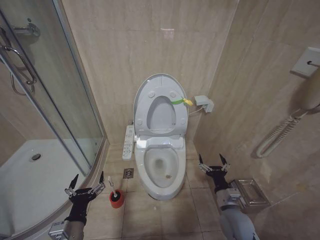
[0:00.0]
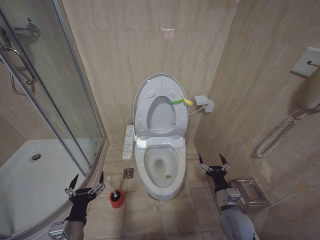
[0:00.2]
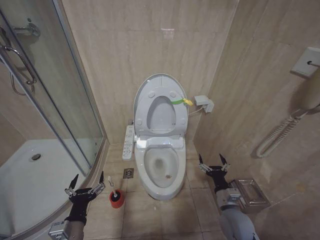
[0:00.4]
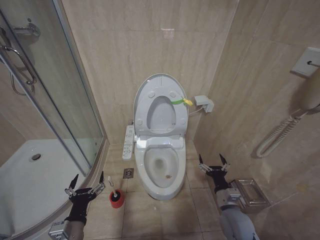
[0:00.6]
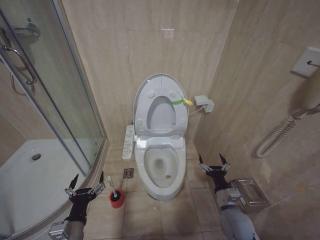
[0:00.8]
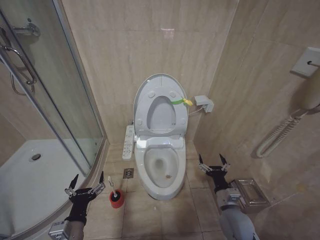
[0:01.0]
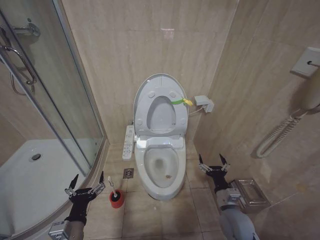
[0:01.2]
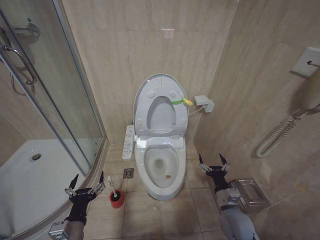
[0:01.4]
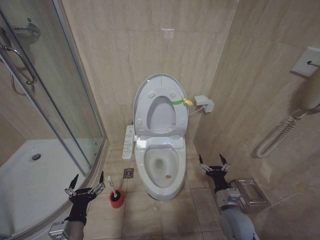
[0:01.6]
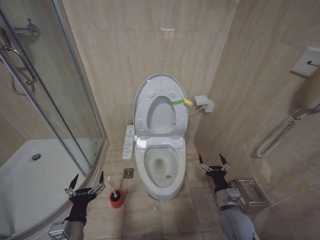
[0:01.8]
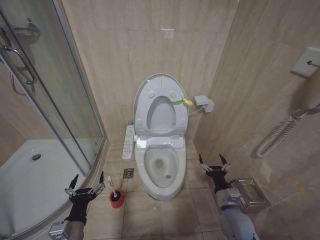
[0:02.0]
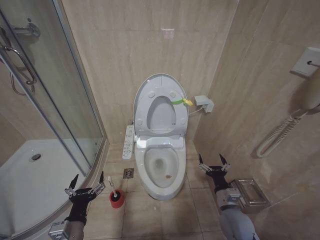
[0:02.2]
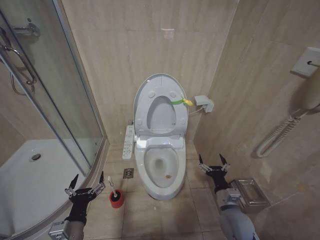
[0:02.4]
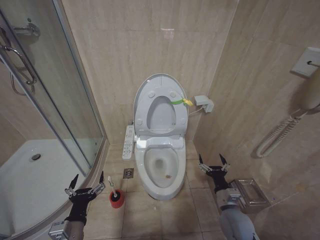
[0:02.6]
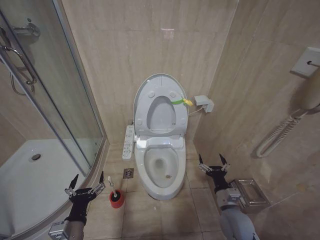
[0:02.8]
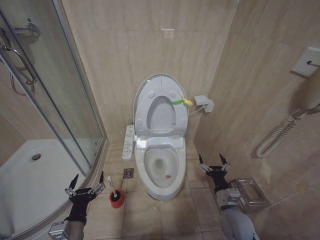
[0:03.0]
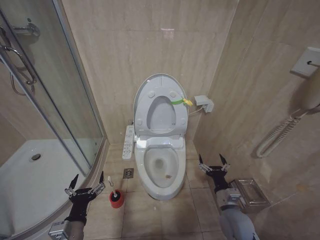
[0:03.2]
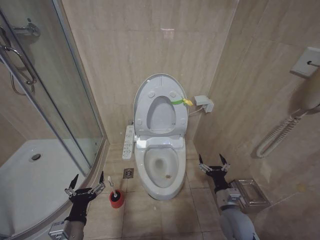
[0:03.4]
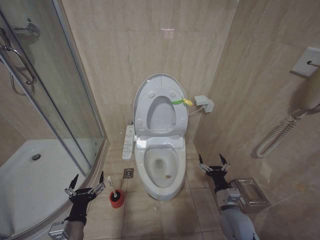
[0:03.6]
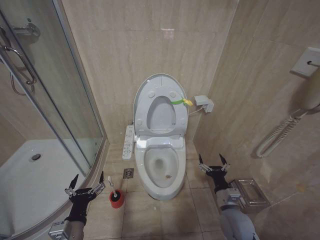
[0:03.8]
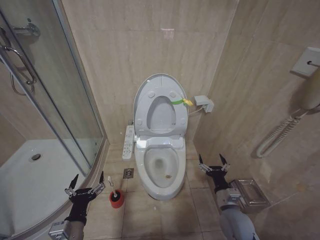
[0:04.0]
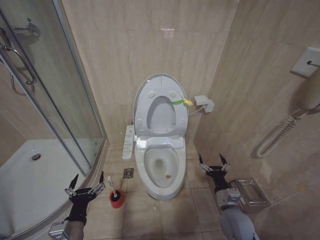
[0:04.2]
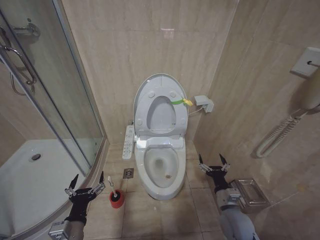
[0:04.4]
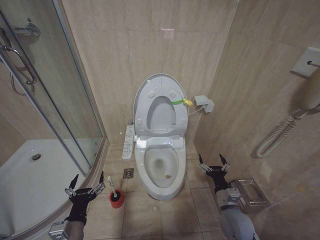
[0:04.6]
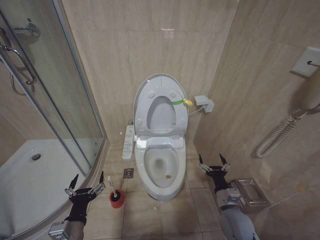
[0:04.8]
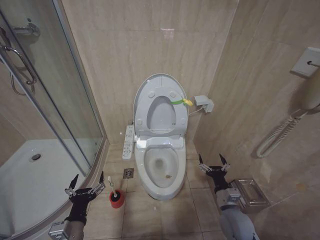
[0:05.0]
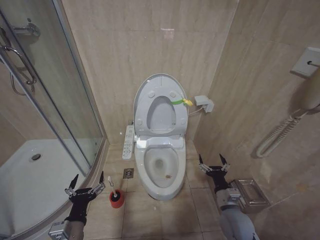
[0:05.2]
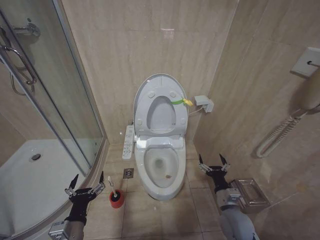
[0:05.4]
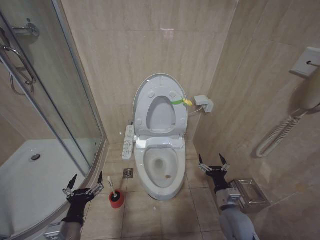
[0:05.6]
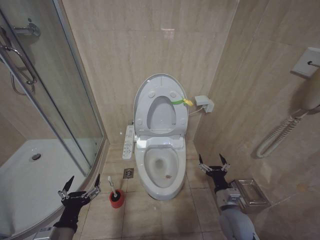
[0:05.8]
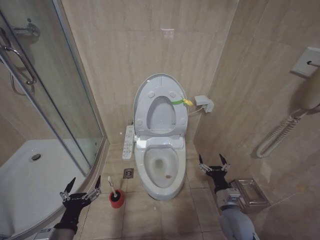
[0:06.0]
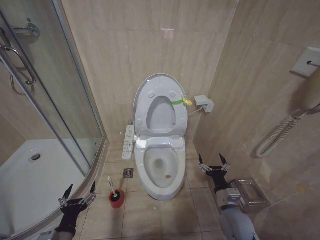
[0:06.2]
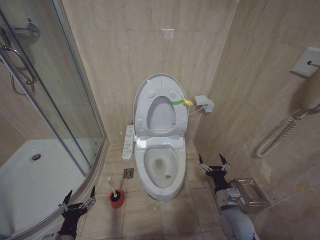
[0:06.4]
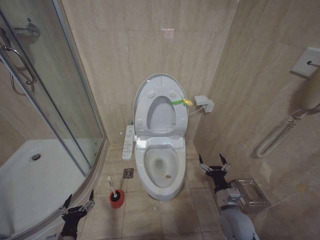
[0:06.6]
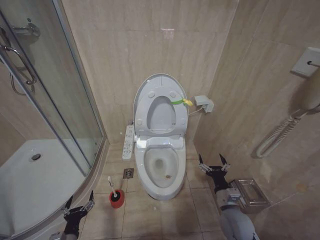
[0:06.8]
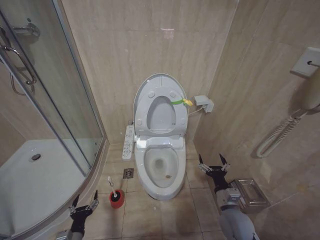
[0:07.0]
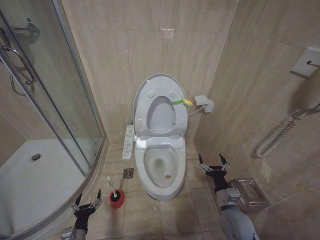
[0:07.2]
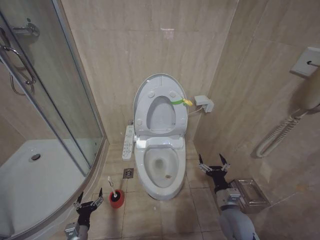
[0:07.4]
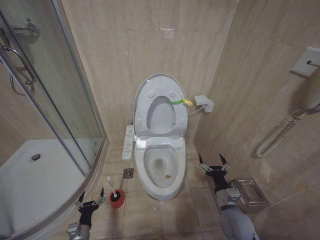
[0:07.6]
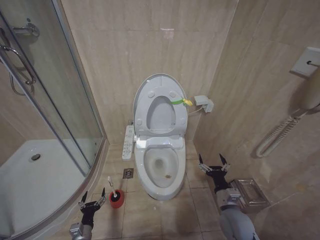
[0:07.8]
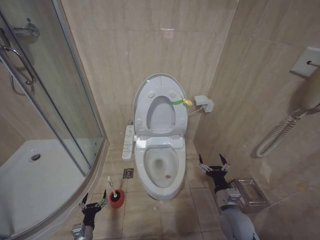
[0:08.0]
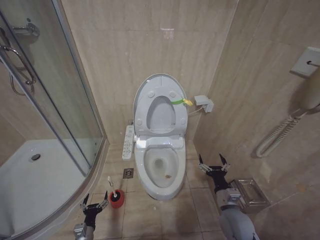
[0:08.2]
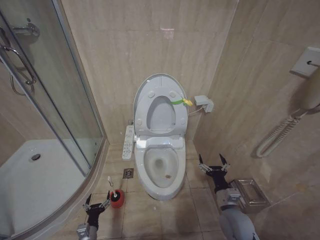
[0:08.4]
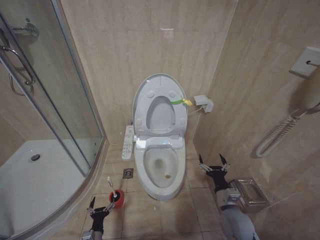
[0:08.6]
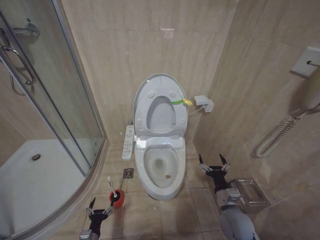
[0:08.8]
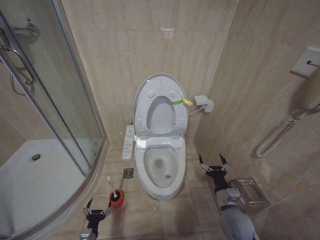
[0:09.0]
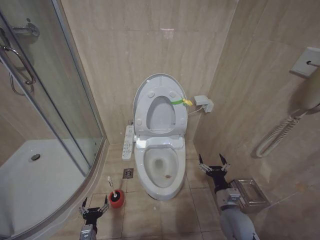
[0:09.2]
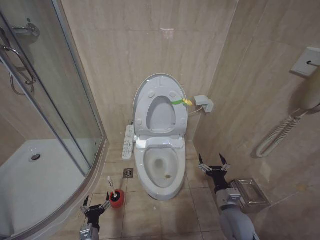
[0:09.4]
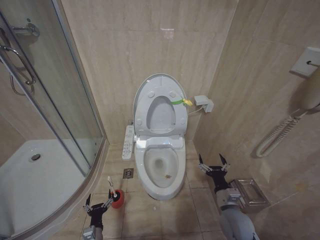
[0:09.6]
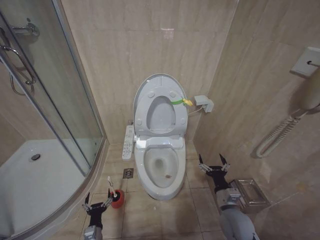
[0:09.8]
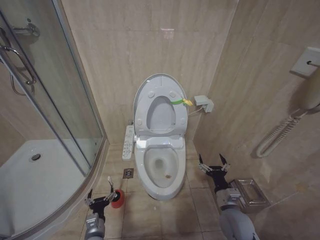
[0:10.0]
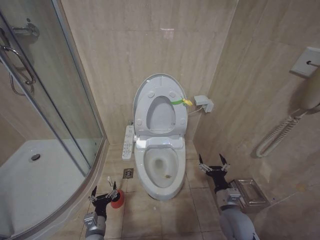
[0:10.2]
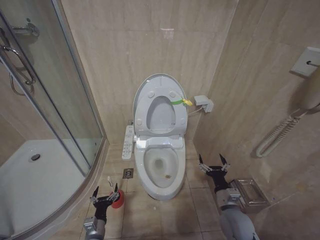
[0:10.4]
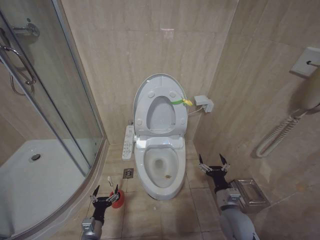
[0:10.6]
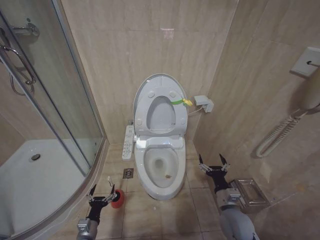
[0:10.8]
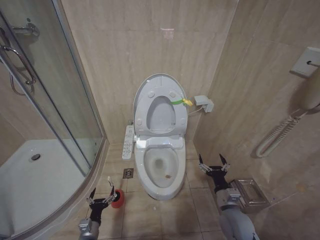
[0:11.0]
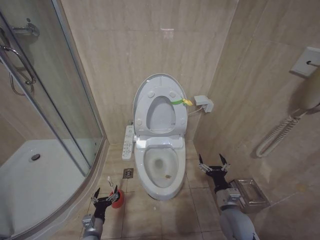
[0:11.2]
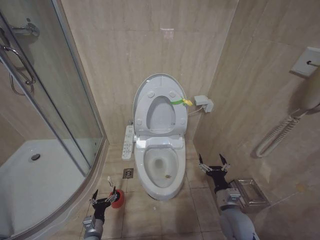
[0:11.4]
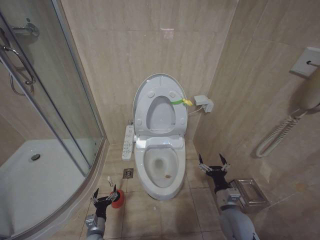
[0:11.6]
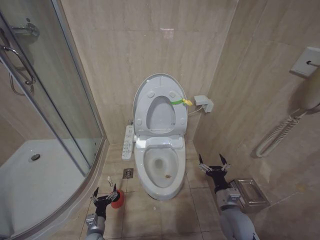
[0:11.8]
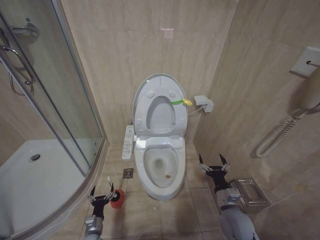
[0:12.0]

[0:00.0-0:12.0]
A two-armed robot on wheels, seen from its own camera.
Task of the whole recording: Open the toilet lid, clean the toilet bowl with a toilet brush, close the toilet lid, and flush.
0:00.0 to 0:04.4: Both grippers stay about where they are.
0:04.4 to 0:06.0: The grippers stay close to where they were, moving slightly.
0:06.0 to 0:07.6: The left gripper shifts roughly 20 cm downward.
0:09.0 to 0:10.4: The left gripper goes about 10 cm upward and to the right.
0:10.4 to 0:12.0: The left gripper shifts some 5 cm downward.

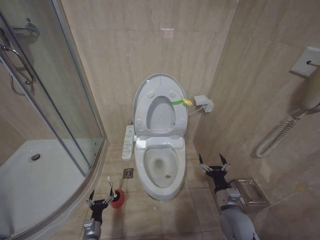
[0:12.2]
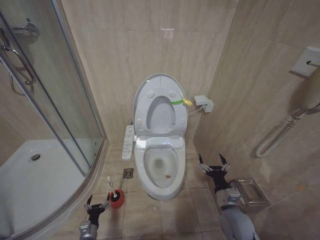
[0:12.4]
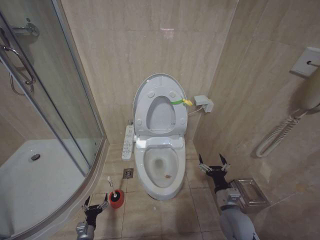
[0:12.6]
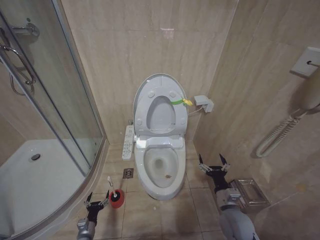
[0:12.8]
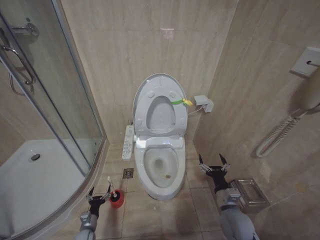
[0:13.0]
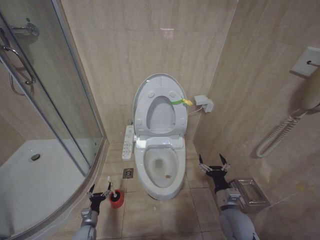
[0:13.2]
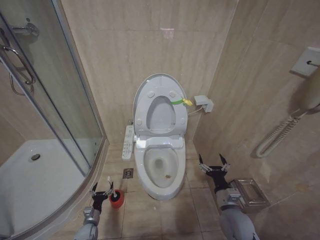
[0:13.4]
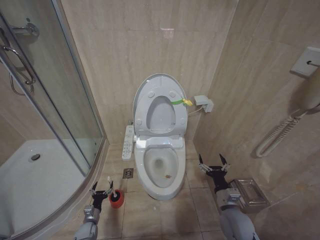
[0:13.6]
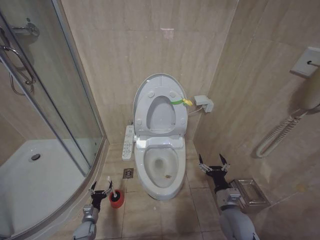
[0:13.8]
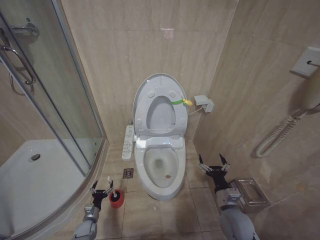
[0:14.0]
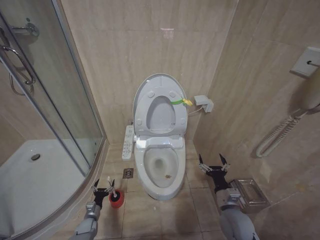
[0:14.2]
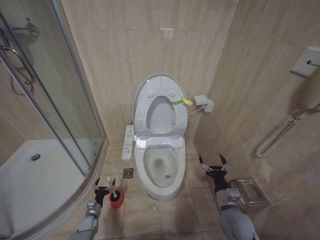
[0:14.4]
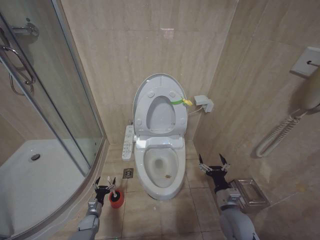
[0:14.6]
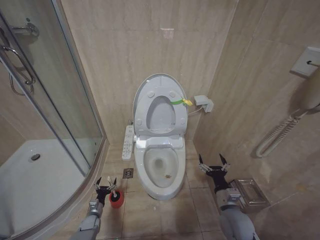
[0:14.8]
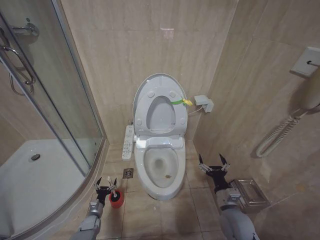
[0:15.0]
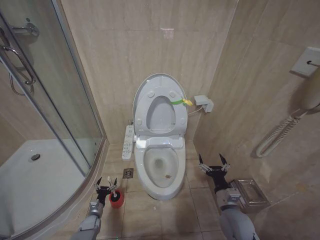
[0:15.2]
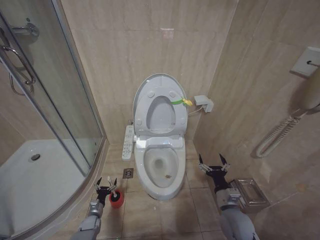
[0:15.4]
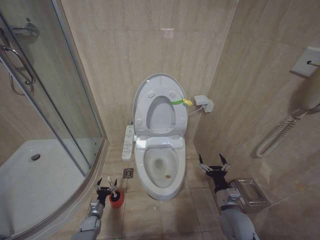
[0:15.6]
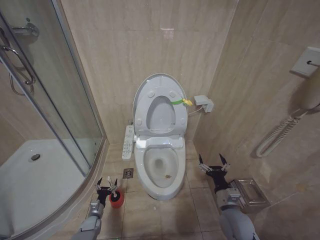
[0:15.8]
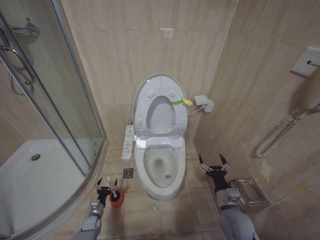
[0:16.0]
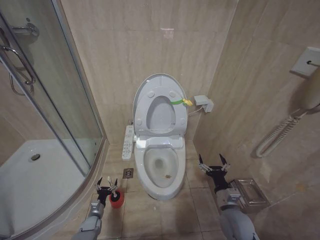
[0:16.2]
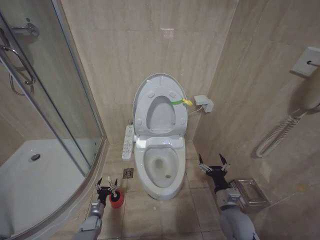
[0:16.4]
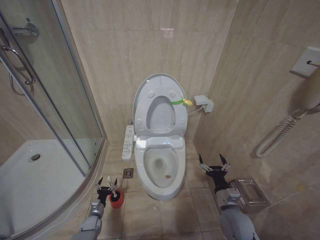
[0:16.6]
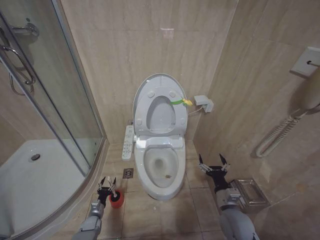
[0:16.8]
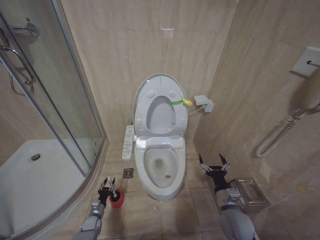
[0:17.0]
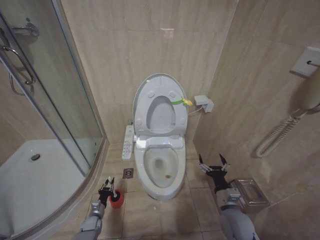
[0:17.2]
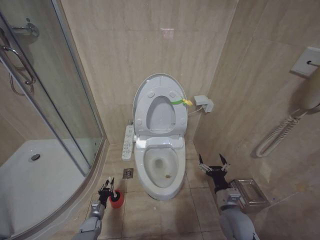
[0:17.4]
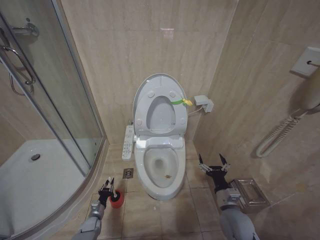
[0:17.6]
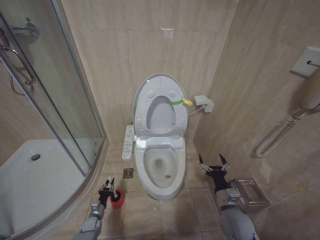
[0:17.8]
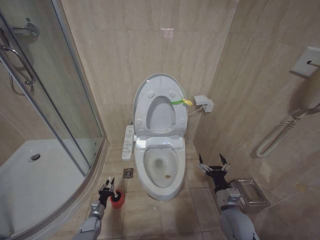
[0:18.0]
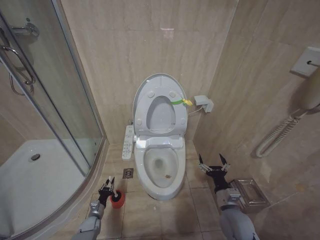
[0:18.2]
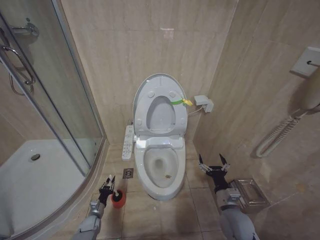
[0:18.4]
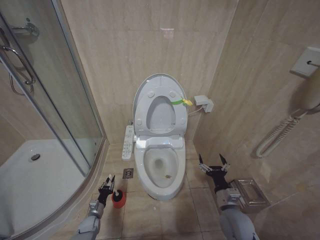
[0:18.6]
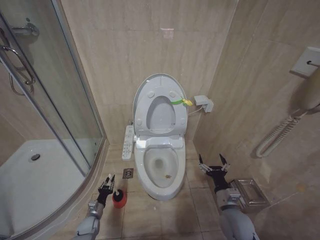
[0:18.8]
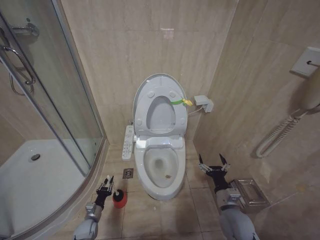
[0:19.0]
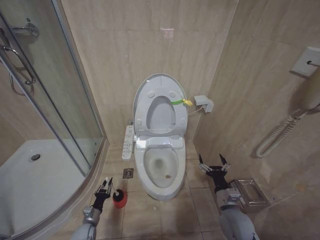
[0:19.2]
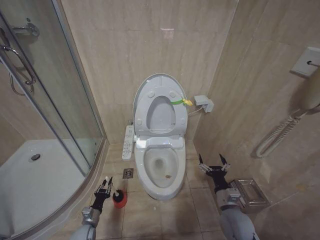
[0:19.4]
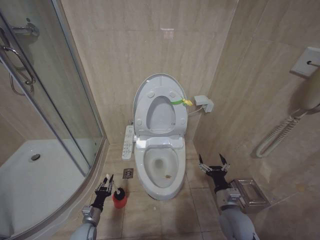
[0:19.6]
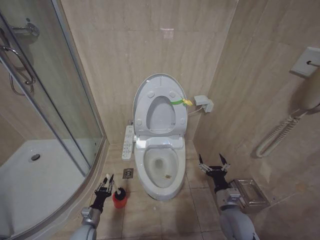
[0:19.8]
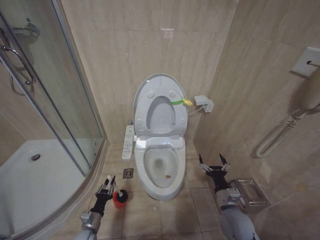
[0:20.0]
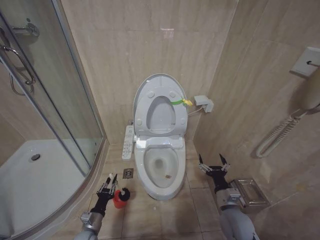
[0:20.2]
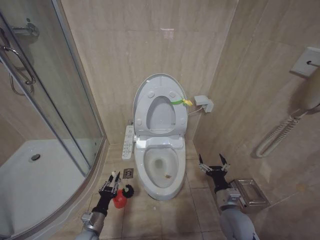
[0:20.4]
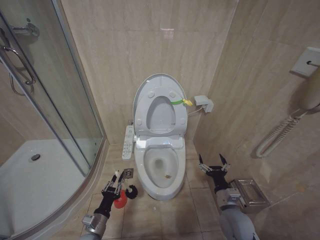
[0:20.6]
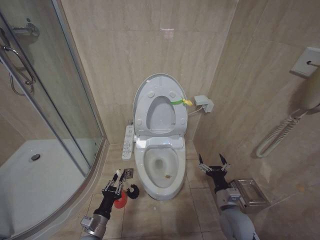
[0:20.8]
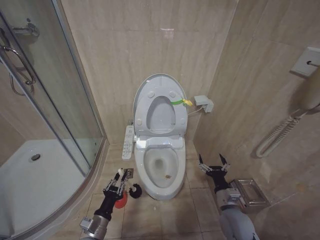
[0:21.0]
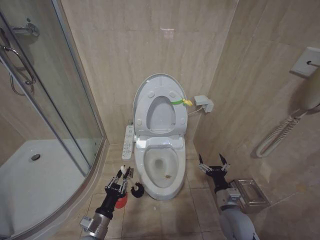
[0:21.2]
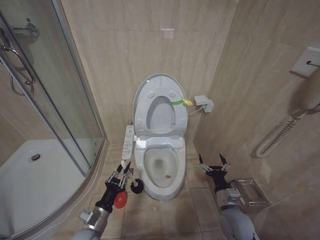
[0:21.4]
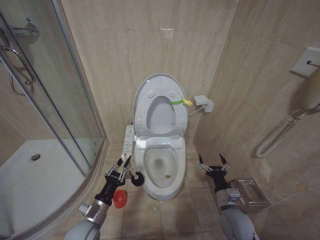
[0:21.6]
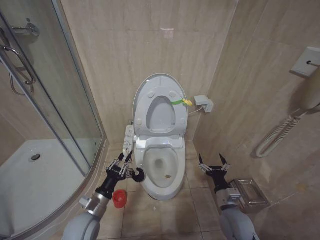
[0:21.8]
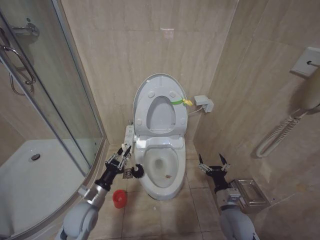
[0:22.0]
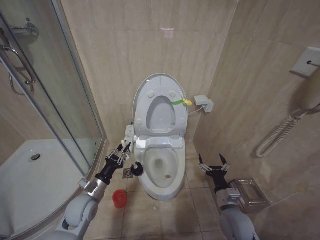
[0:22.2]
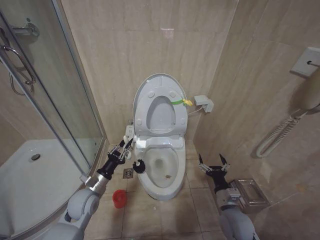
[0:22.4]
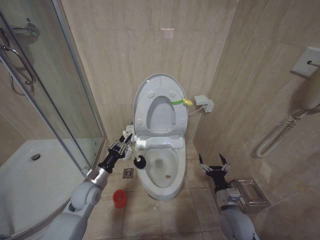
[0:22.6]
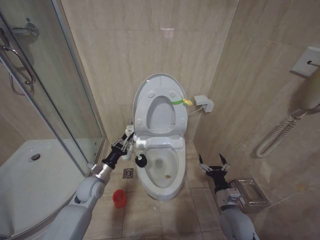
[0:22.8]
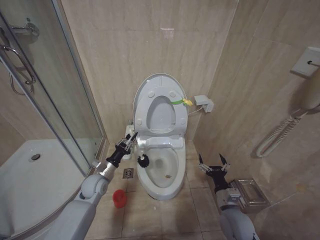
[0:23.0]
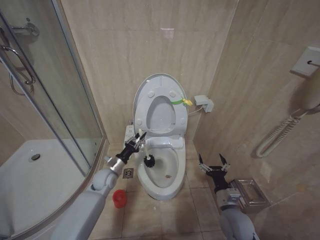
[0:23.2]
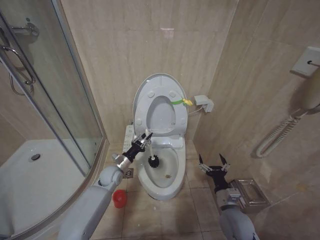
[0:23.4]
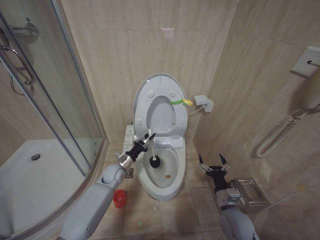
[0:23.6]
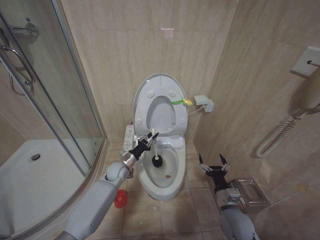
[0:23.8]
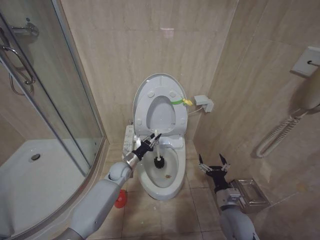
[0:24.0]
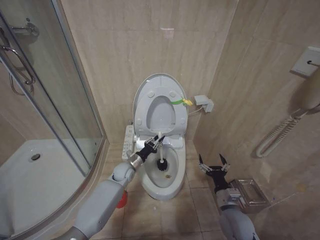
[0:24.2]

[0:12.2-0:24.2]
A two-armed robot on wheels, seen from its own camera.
Task of the whole recording: Open the toilet lid, clean the toilet bowl with a toilet brush, close the toilet lid, and flush.
0:12.2 to 0:13.8: The left gripper heads forward and to the left, covering some 10 cm.
0:13.8 to 0:15.2: The grippers stay close to where they were, moving slightly.
0:15.2 to 0:16.6: Both grippers stay about where they are.
0:18.2 to 0:19.8: The left gripper goes approximately 10 cm upward and backward.
0:19.8 to 0:21.2: The left gripper travels upward, backward and to the right by roughly 20 cm.
0:21.2 to 0:22.6: The left gripper heads forward and upward, covering roughly 15 cm.
0:22.6 to 0:24.2: The left gripper travels forward and to the right by about 15 cm.
